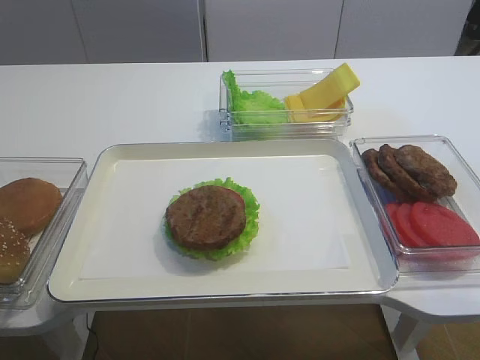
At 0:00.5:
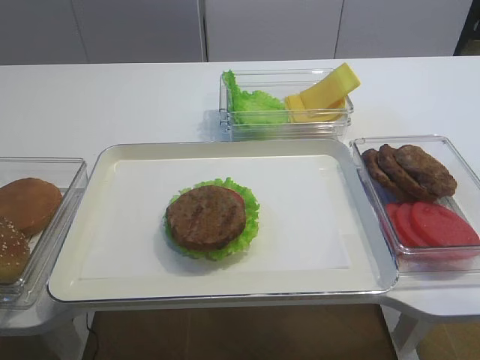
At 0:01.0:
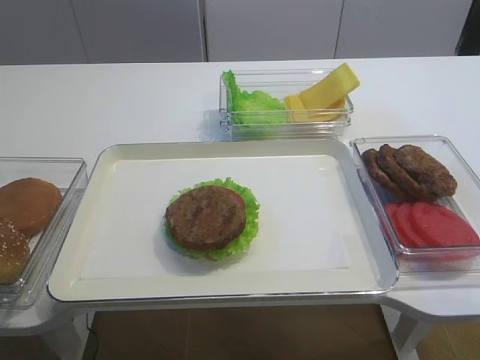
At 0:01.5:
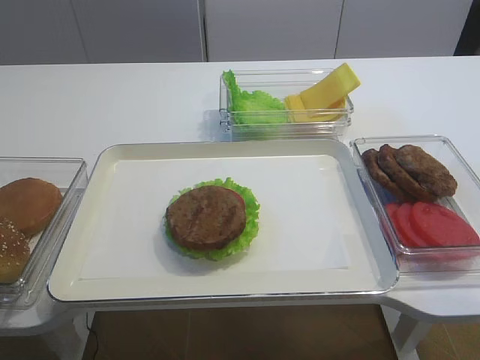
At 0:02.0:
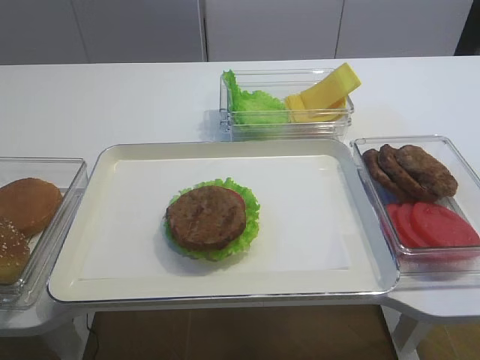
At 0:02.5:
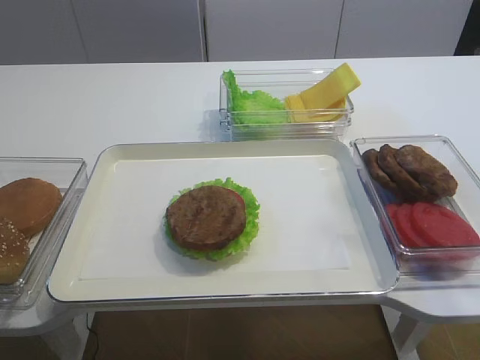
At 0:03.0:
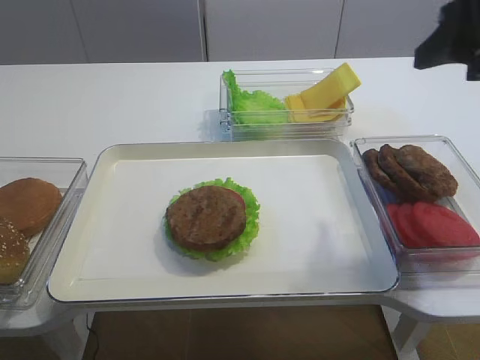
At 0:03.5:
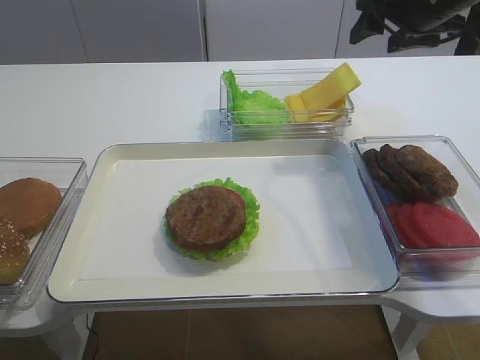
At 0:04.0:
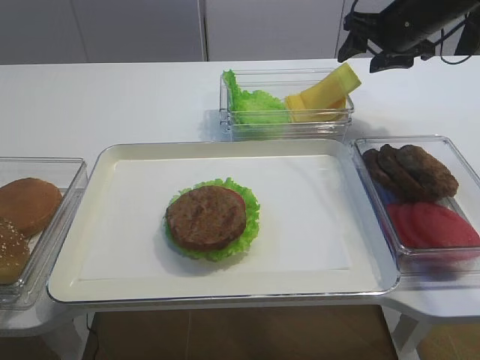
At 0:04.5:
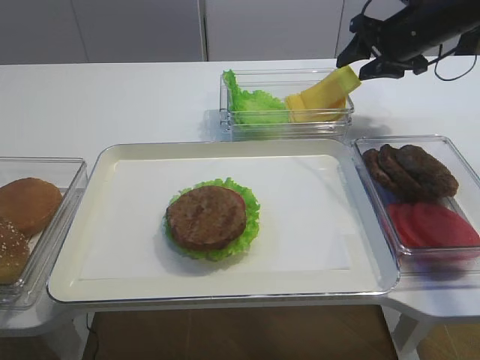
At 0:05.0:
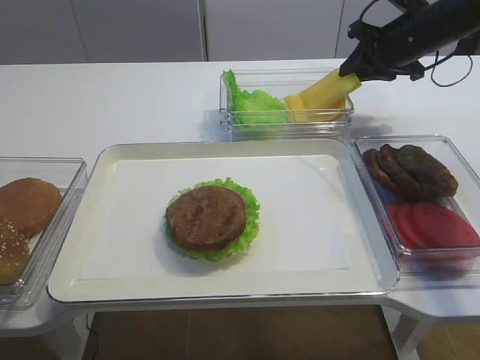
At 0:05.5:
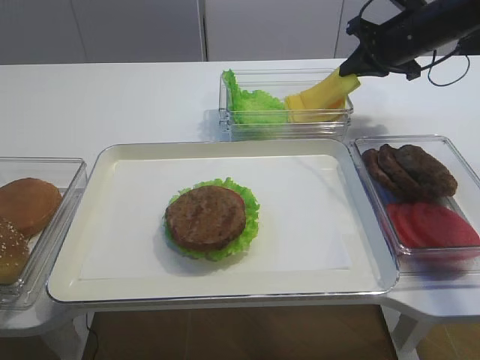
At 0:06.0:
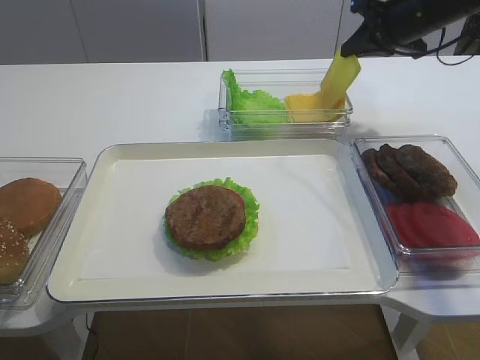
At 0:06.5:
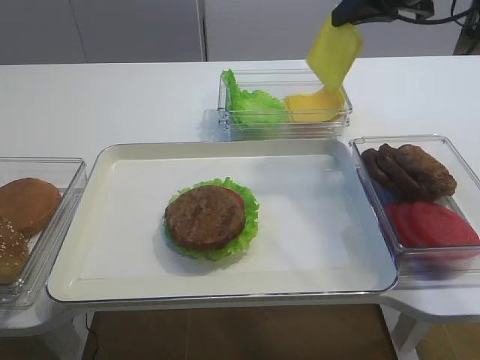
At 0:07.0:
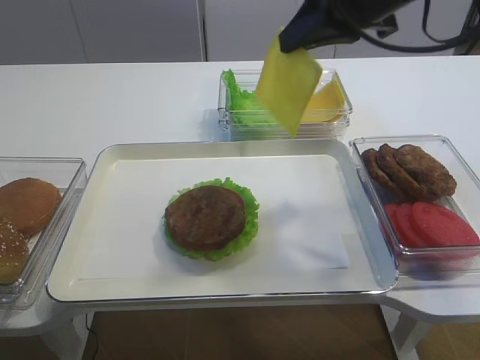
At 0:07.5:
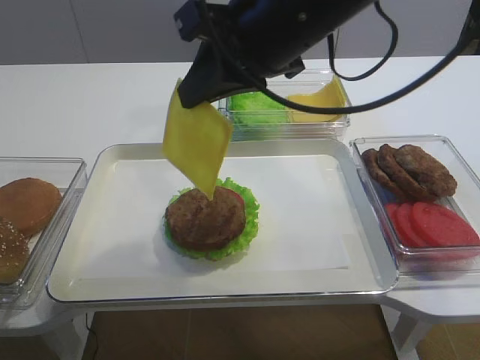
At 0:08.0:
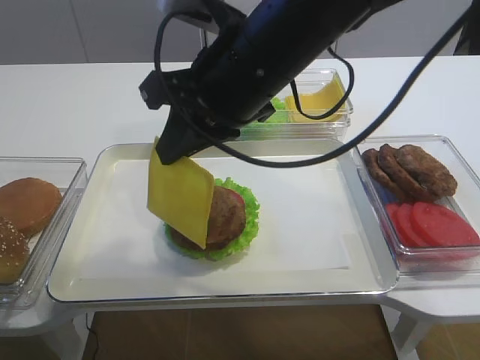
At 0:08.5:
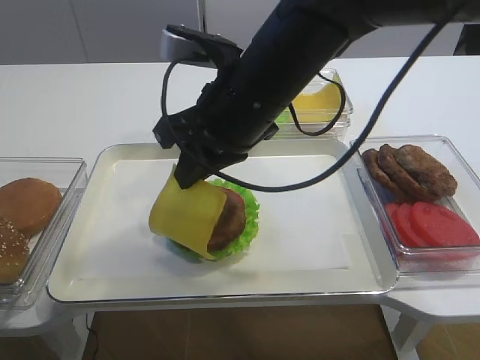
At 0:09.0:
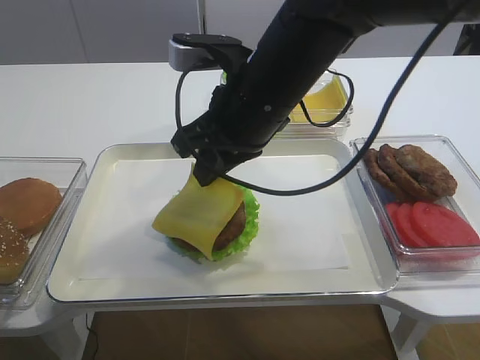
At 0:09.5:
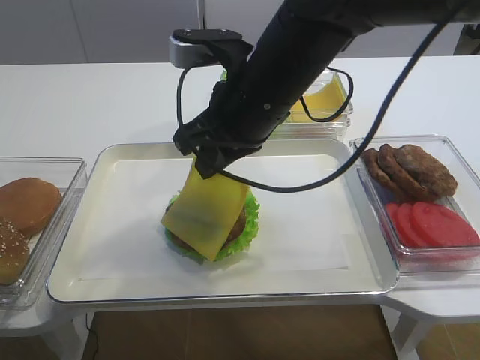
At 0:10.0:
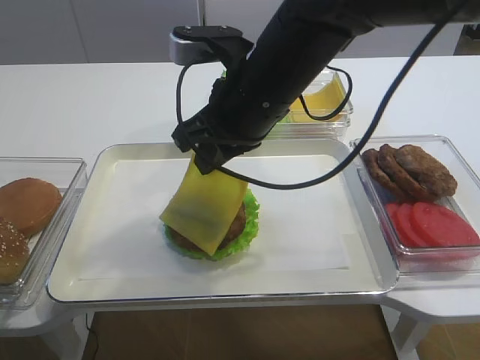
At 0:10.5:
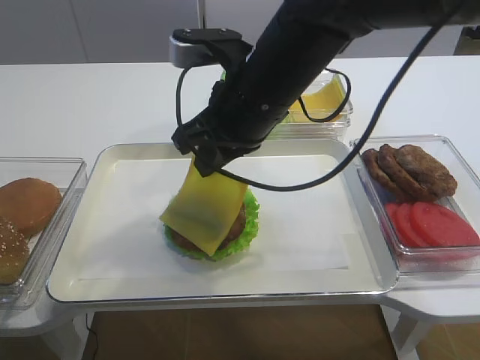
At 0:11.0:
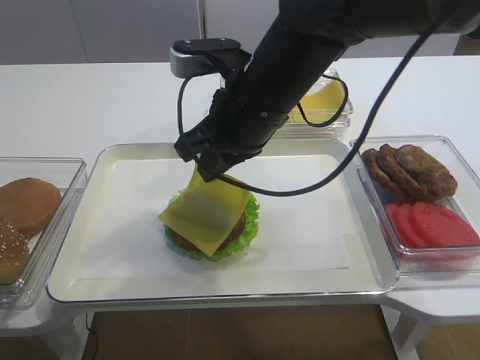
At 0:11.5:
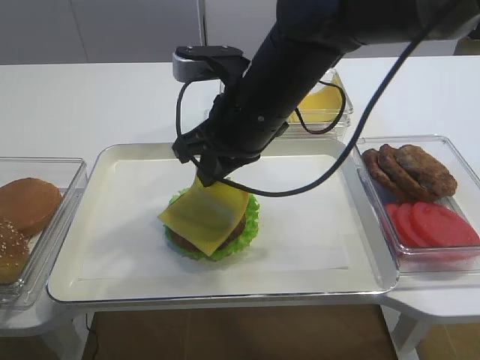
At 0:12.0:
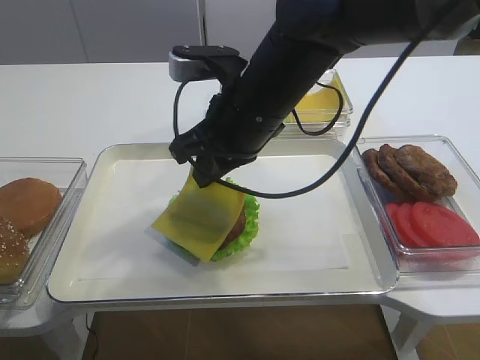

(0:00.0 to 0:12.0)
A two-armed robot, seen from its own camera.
Step, 0:00.0 - 0:05.5: Pick up the cheese slice with the right gripper.
0:02.0 - 0:04.0: The right gripper is displaced forward by roughly 50 cm.
0:04.0 - 0:06.0: The right gripper closes up.
0:06.0 - 0:08.0: The right gripper heads to the left and backward, covering roughly 30 cm.
0:08.0 - 0:10.0: The grippers make only small movements.
0:10.0 - 0:12.0: The grippers make only small movements.

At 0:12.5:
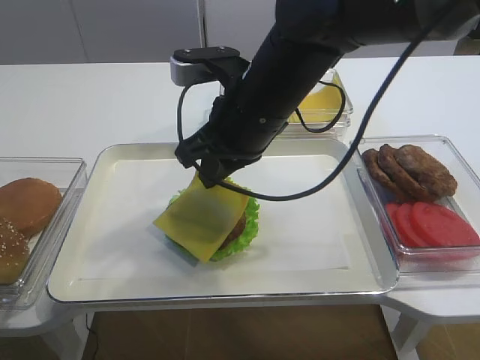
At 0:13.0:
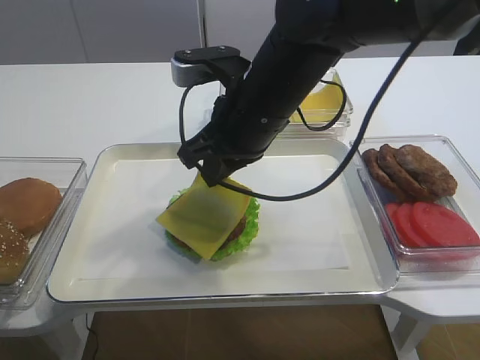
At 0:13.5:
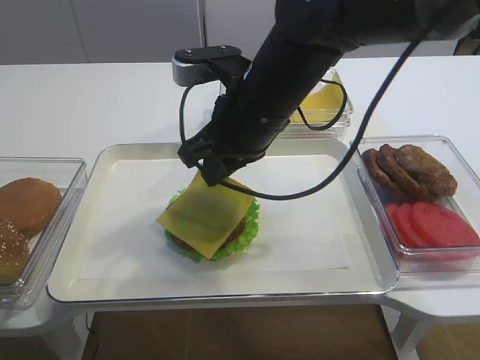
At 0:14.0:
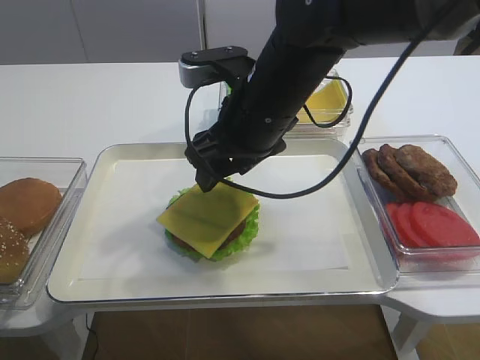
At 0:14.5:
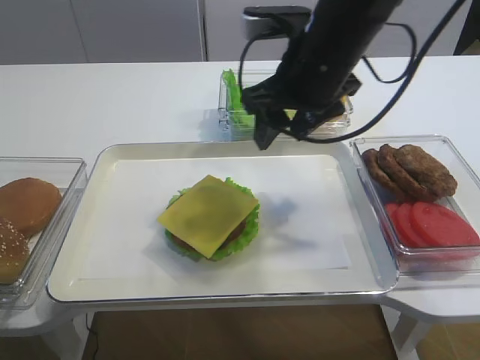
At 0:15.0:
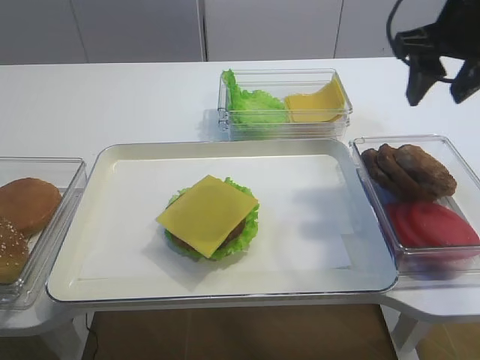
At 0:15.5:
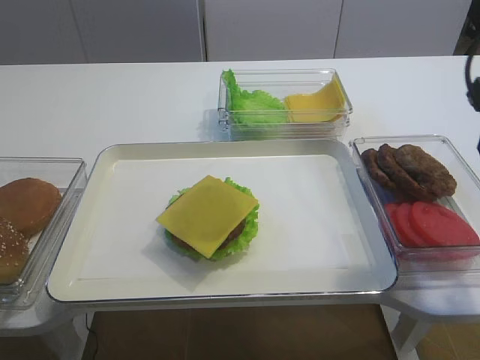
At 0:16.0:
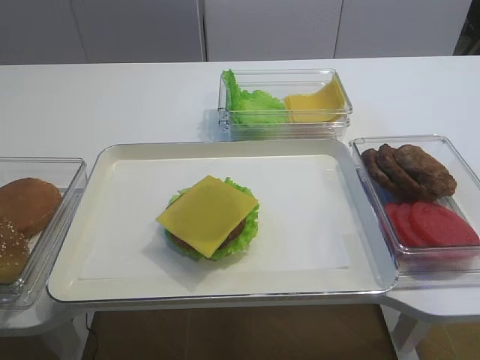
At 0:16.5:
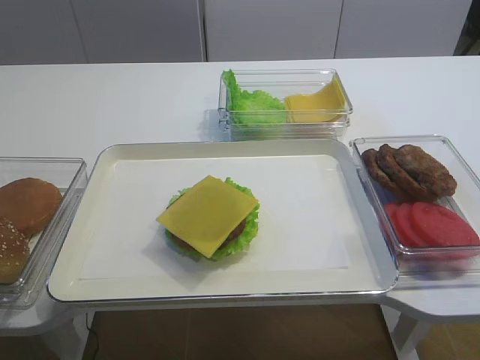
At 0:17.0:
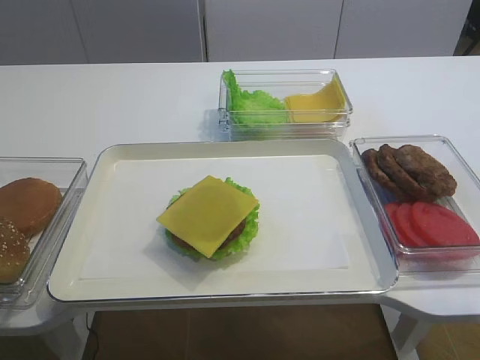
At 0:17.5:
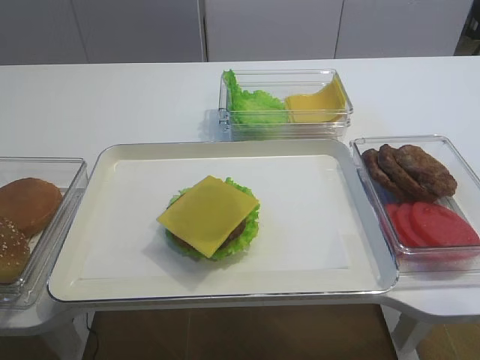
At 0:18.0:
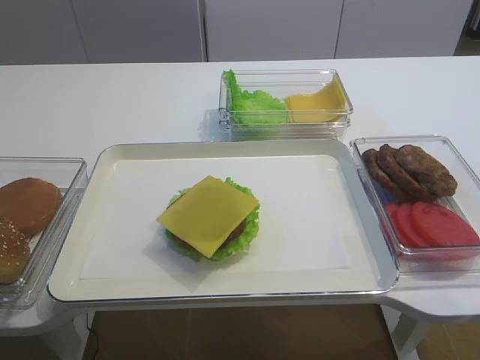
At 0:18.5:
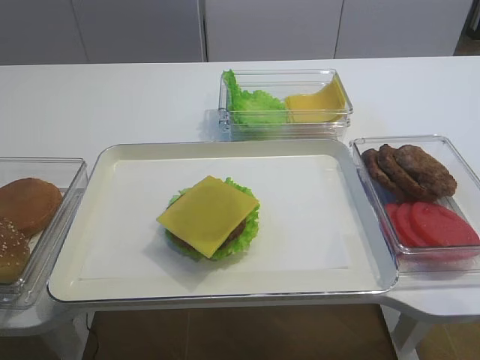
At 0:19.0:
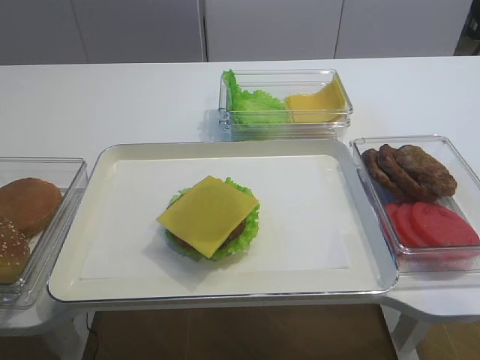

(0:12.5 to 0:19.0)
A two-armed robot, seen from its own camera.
0:12.5 - 0:14.5: The right gripper goes about 5 cm to the right, and opens up.
0:14.5 - 0:17.0: The right gripper heads backward and to the right, covering some 40 cm.

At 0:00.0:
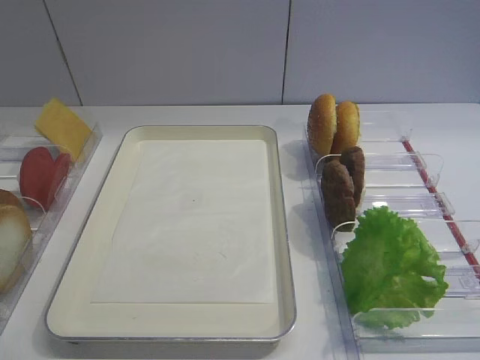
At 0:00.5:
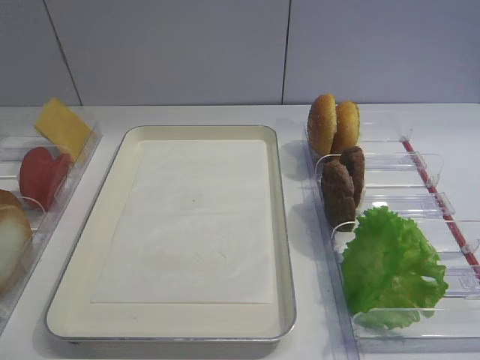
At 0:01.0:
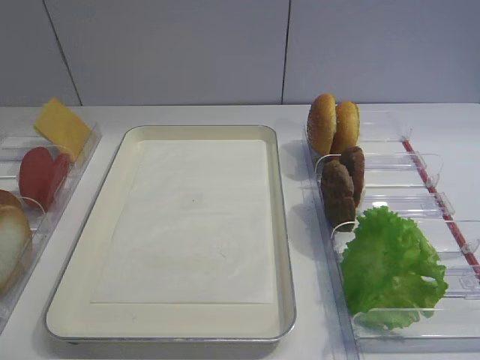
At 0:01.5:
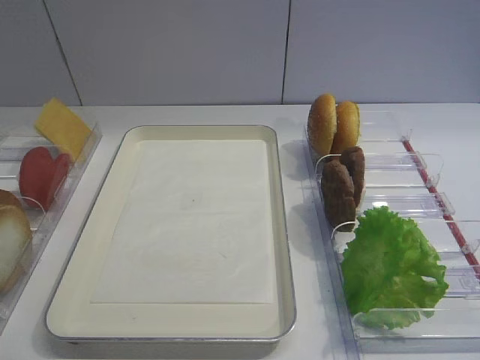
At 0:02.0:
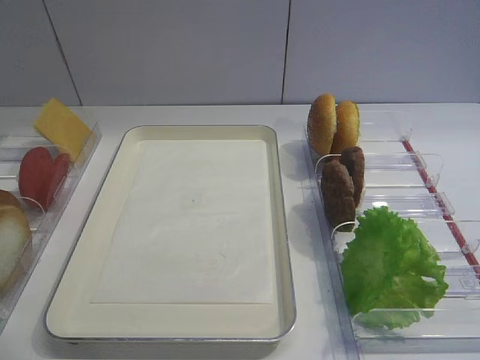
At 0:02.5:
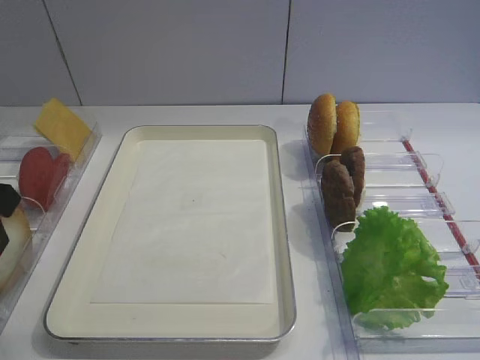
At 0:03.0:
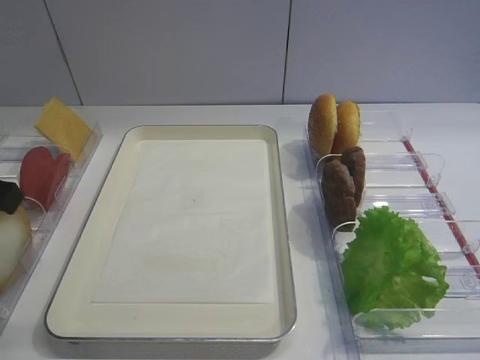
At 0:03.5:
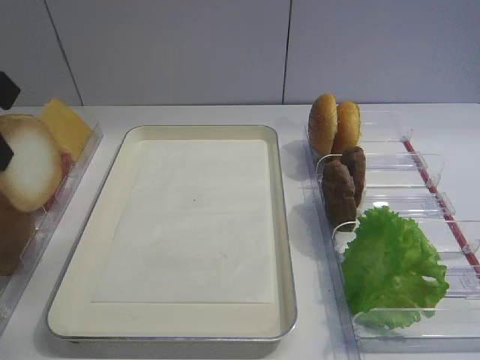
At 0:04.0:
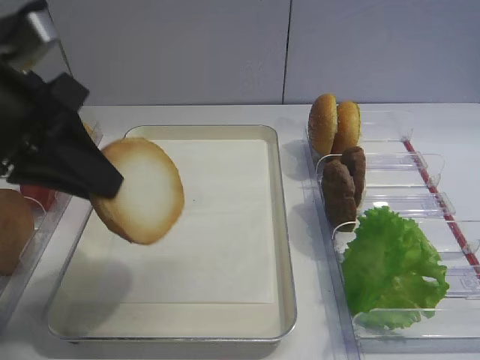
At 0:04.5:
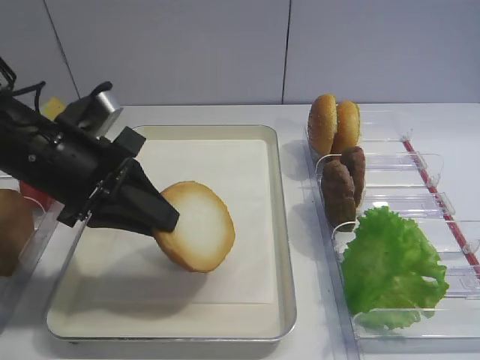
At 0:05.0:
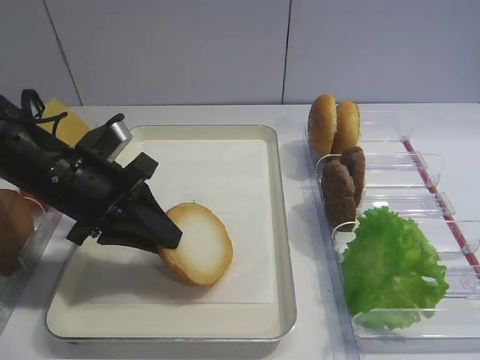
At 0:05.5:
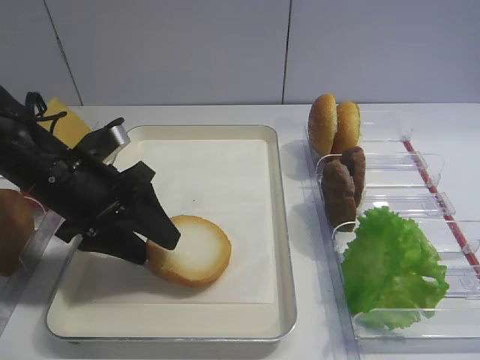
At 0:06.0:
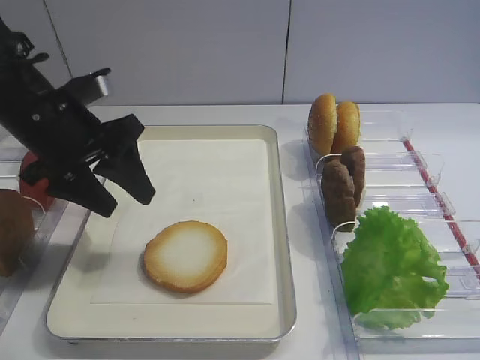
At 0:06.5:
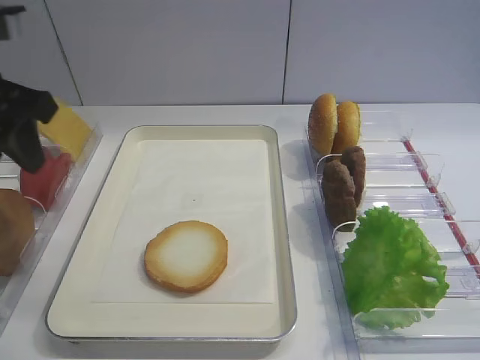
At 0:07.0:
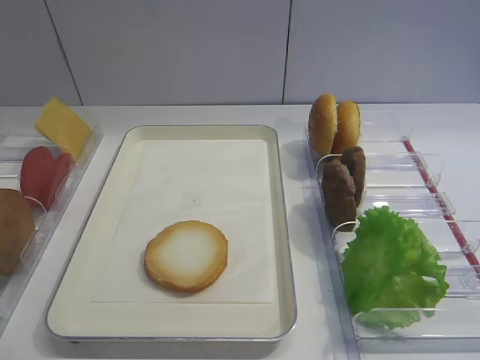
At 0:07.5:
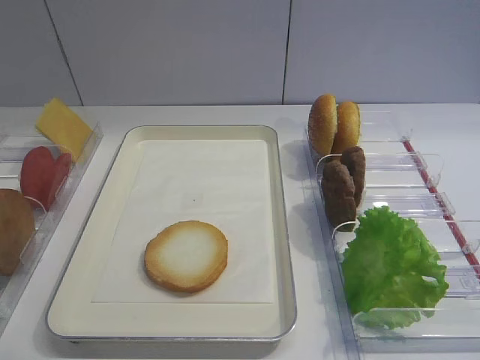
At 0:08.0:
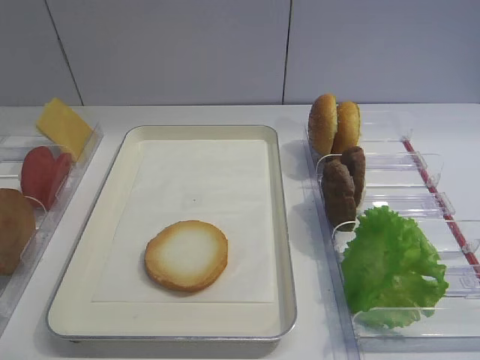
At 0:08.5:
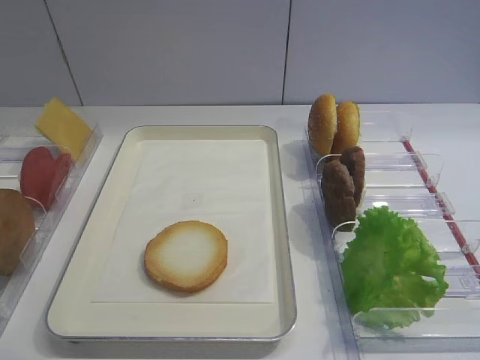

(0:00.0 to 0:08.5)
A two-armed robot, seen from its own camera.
Step, 0:03.5 - 0:05.5: Place the bread slice on the tray with the left gripper.
0:02.0 - 0:04.0: The left gripper is displaced to the right by about 10 cm, and closes.
0:04.0 - 0:06.5: The left gripper travels upward, to the left and backward by some 15 cm, and opens.
0:06.5 - 0:08.5: The left gripper shifts about 25 cm backward and downward.
